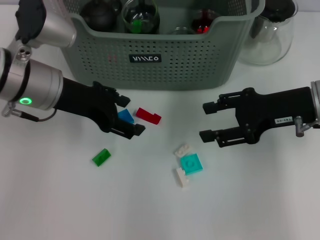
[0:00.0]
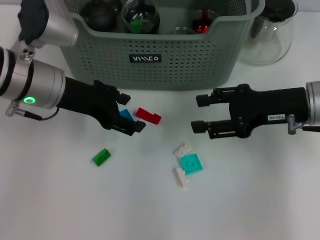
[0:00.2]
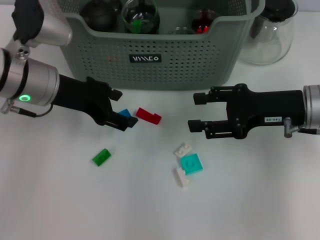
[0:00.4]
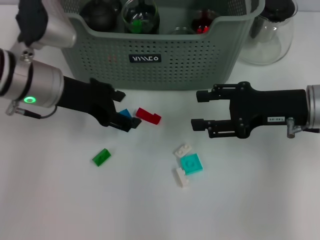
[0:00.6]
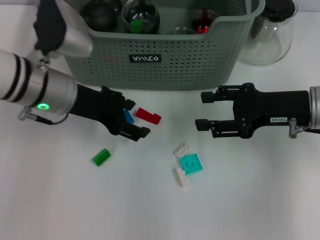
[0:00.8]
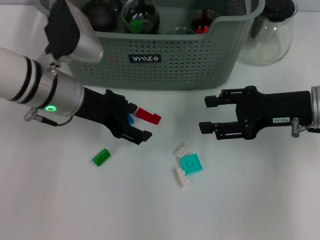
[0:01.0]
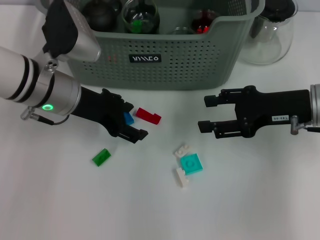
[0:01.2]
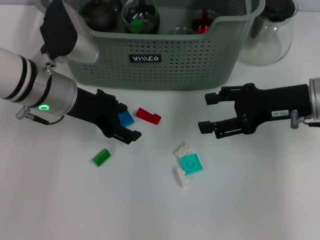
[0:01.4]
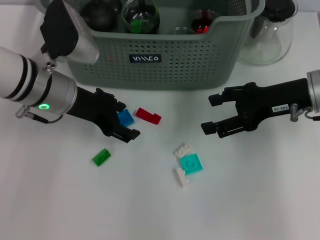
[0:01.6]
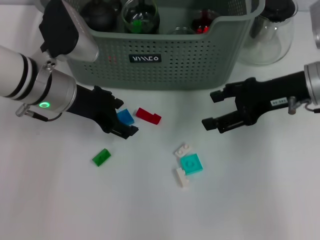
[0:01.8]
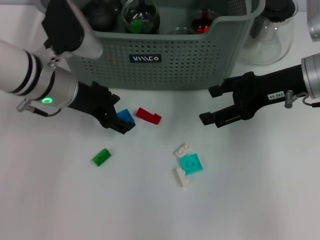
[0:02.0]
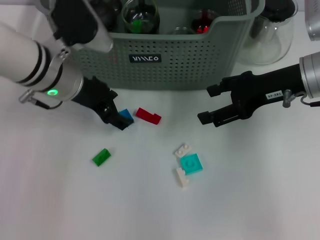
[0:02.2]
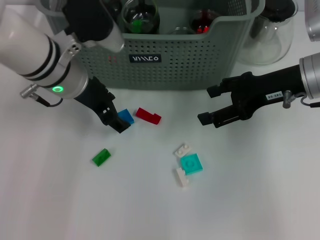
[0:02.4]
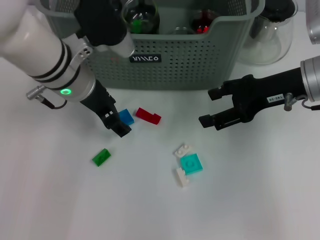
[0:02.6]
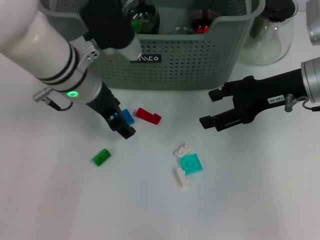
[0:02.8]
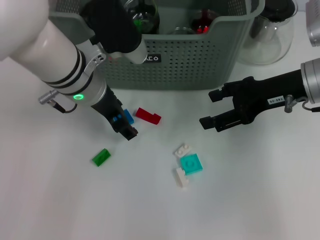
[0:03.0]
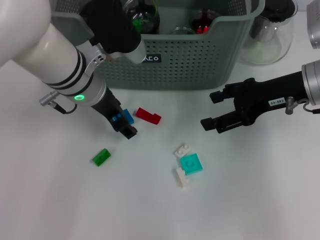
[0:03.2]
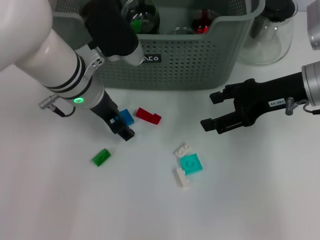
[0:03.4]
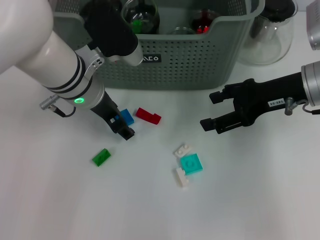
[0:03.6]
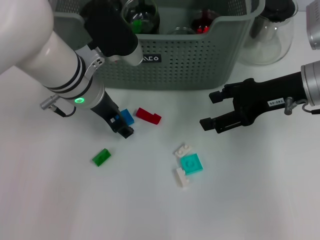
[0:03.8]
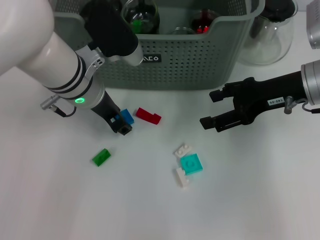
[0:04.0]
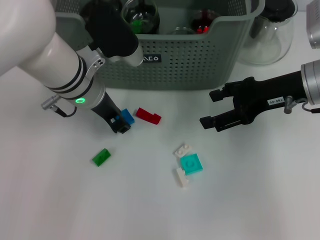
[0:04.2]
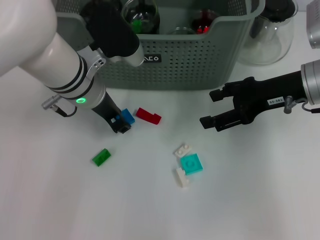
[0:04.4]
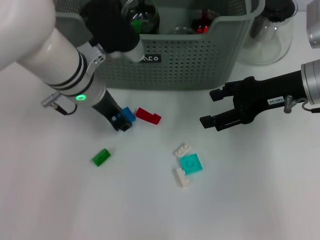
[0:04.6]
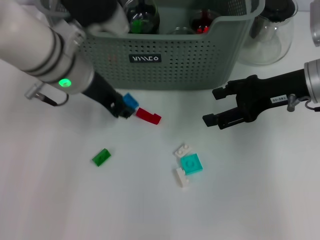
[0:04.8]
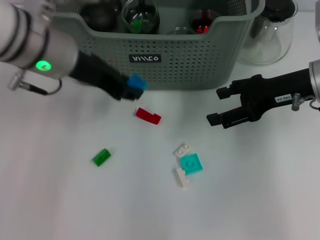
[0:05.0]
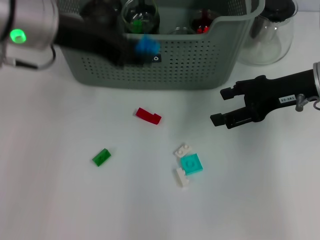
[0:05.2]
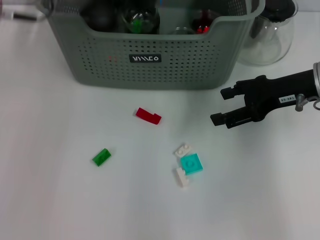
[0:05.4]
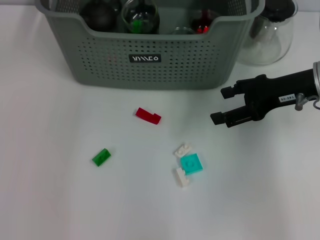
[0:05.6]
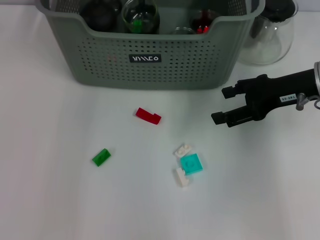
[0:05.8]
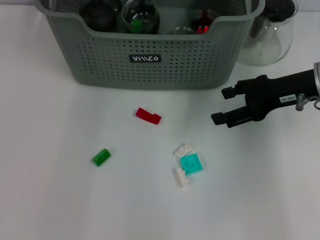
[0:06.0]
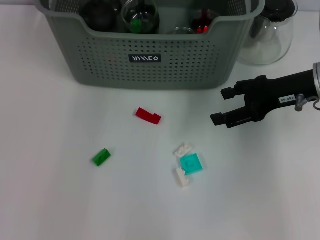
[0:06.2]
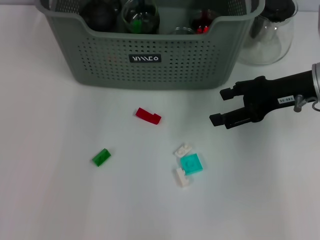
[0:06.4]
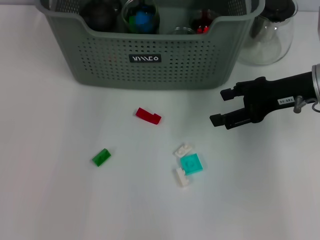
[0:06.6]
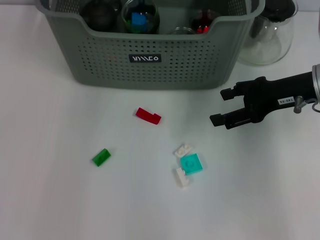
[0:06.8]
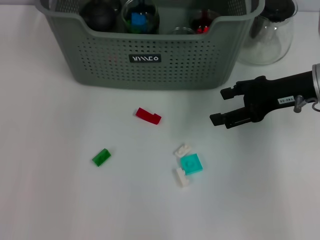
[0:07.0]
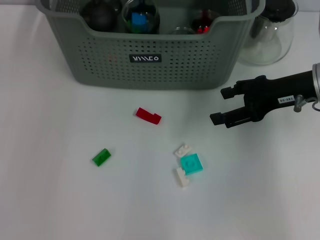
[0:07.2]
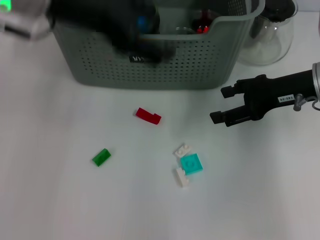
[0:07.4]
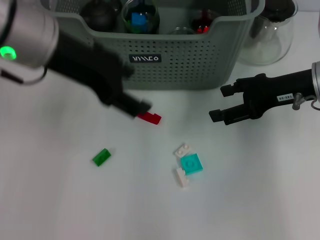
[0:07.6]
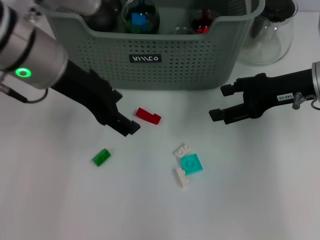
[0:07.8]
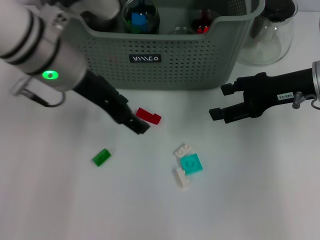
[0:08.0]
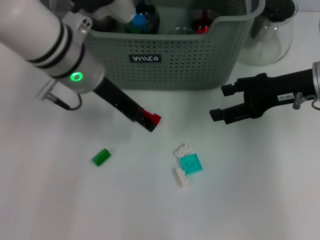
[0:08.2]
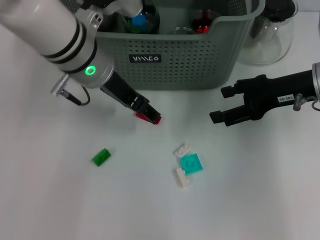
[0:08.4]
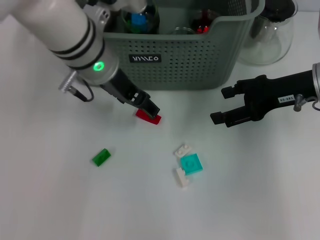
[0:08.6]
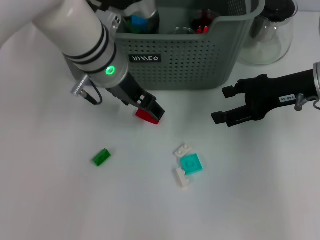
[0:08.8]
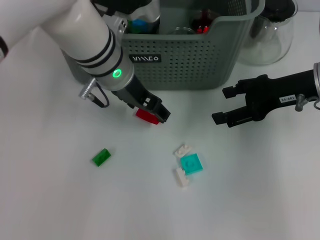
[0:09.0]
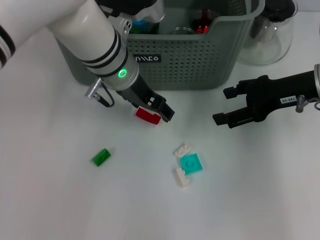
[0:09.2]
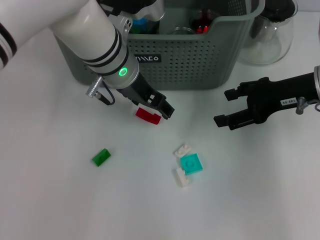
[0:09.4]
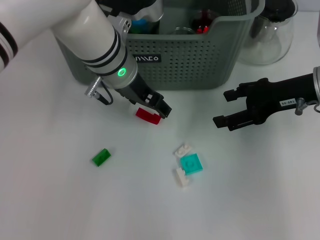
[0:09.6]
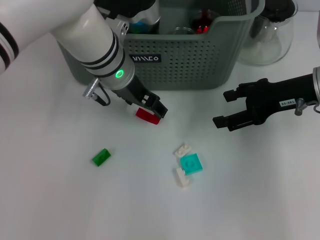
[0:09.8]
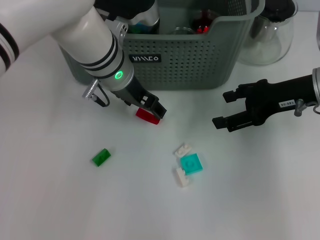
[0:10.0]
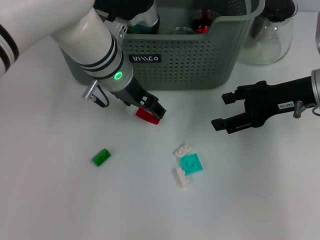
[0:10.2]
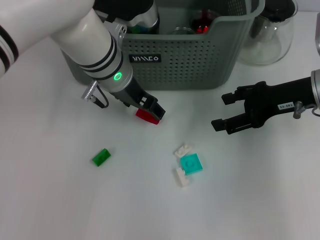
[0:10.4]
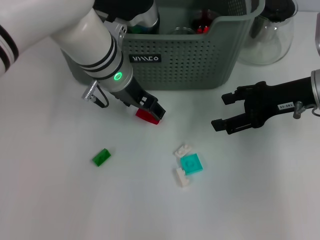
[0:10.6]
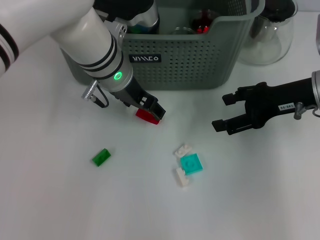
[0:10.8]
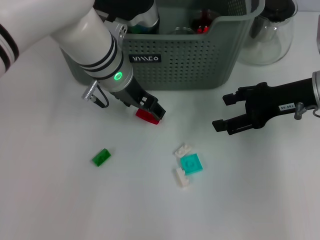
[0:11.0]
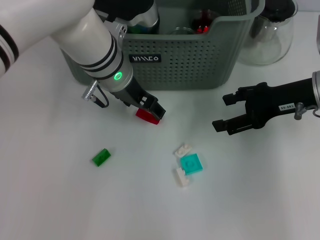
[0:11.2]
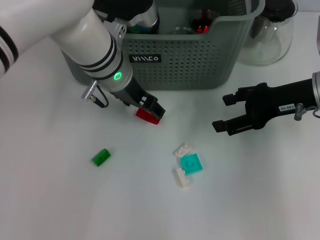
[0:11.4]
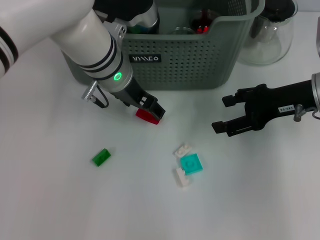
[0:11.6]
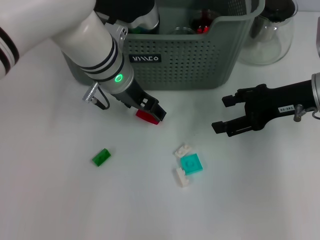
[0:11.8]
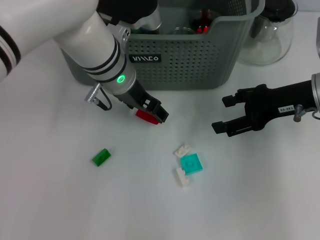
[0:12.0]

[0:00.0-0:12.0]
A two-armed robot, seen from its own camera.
Task of the whole recording: pick up the teacup on the table and place it into the storage bin, pick up the block on the table and place it into the storage bin.
Step, 0.0 to 4.2 s: Grasp the dark blue block with left gripper.
Step, 4.6 to 6.6 s: Place the dark blue block in the storage box with left gripper.
0.0 to 1.6 s: The grippers move only a little.
1.6 to 3.0 s: The left gripper moves to the right, roughly 5 cm.
3.0 to 4.4 s: The left gripper closes its fingers.
4.4 to 6.0 s: The left gripper is displaced upward and forward by about 15 cm.
6.0 to 7.6 s: The left gripper travels backward by some 15 cm, and opens up.
7.6 to 9.0 s: The left gripper heads downward, to the right and forward, covering some 15 cm.
9.0 to 10.4 s: The grippers move only a little.
10.4 to 12.0 s: Neither gripper changes place.

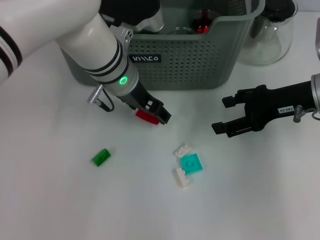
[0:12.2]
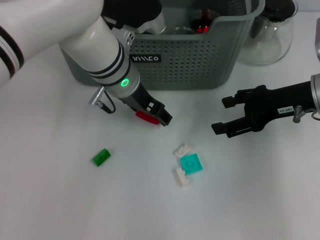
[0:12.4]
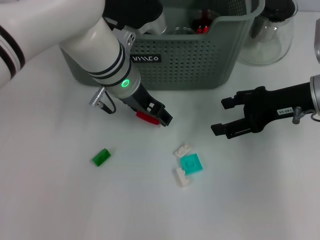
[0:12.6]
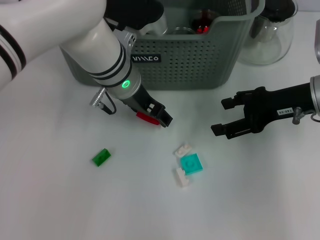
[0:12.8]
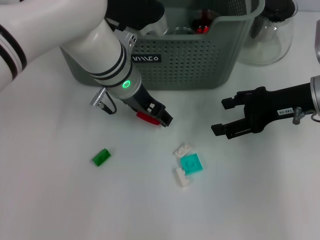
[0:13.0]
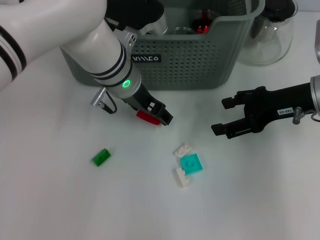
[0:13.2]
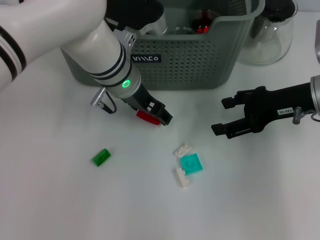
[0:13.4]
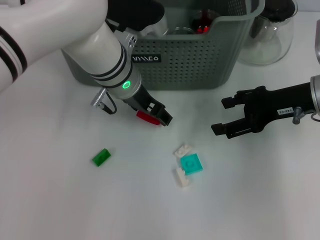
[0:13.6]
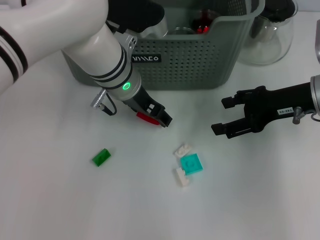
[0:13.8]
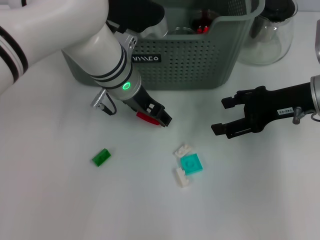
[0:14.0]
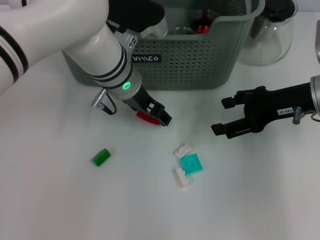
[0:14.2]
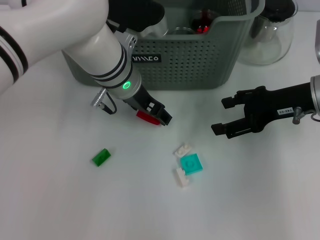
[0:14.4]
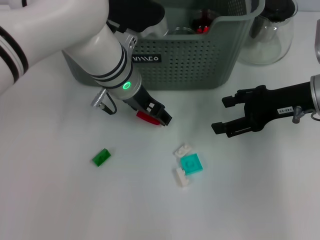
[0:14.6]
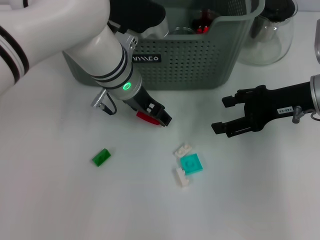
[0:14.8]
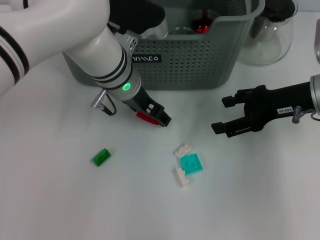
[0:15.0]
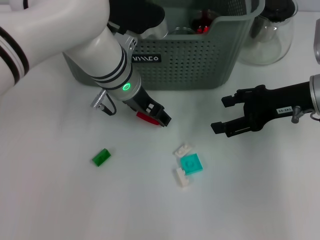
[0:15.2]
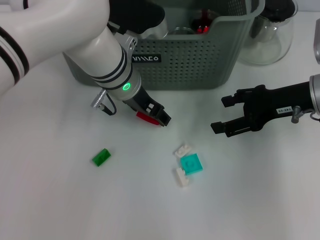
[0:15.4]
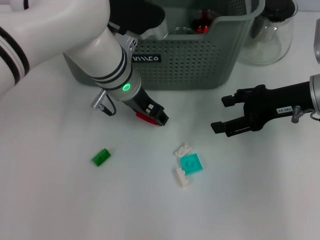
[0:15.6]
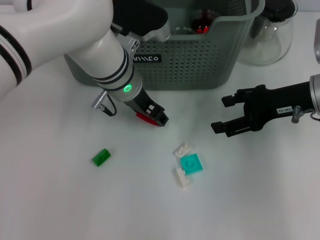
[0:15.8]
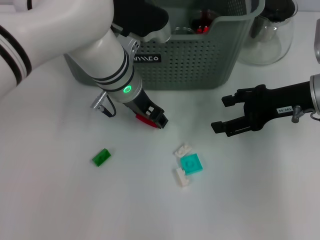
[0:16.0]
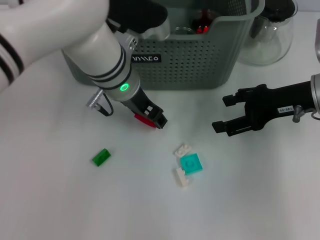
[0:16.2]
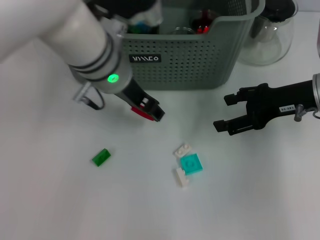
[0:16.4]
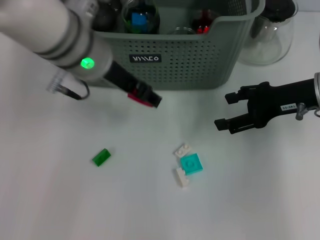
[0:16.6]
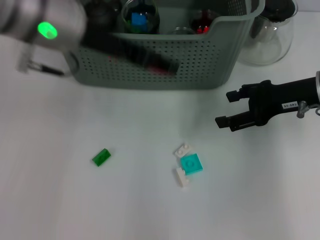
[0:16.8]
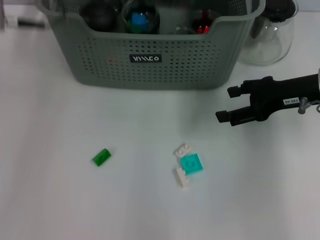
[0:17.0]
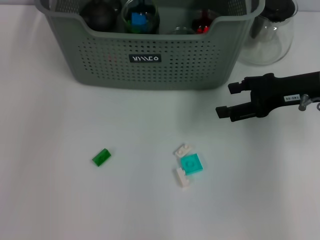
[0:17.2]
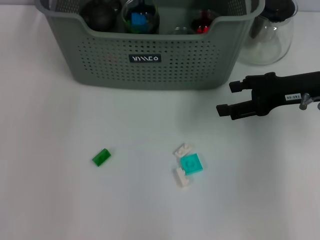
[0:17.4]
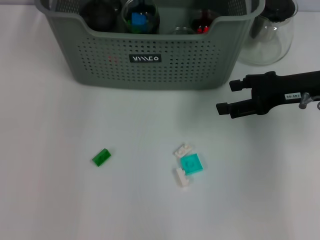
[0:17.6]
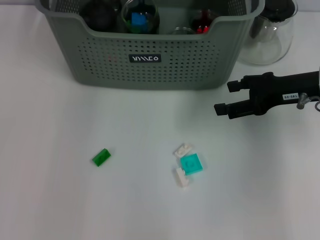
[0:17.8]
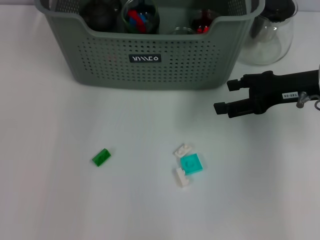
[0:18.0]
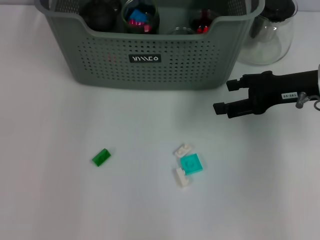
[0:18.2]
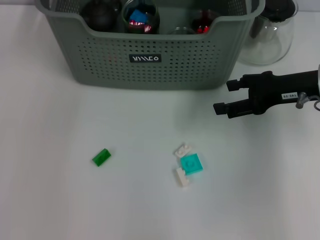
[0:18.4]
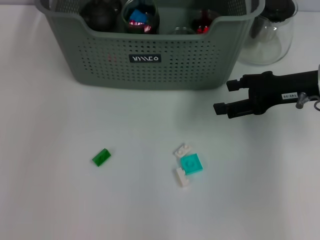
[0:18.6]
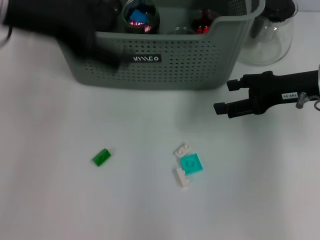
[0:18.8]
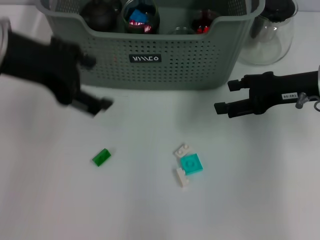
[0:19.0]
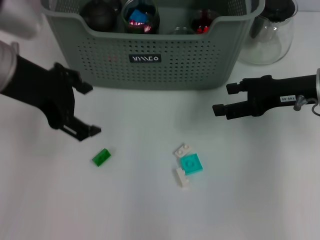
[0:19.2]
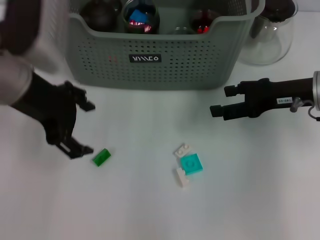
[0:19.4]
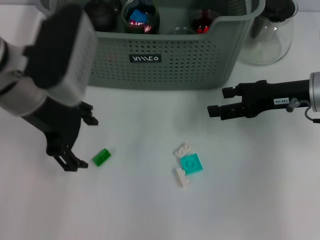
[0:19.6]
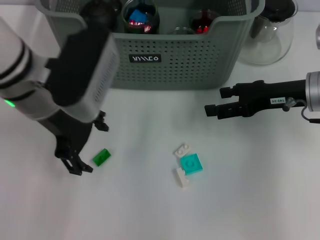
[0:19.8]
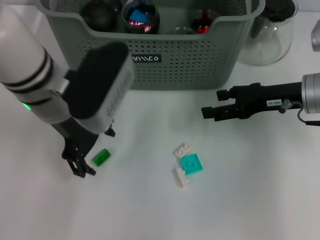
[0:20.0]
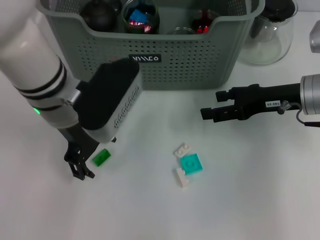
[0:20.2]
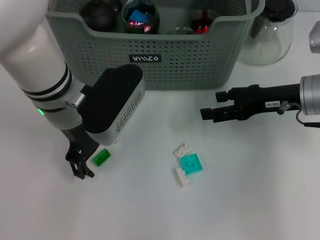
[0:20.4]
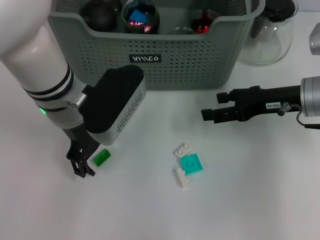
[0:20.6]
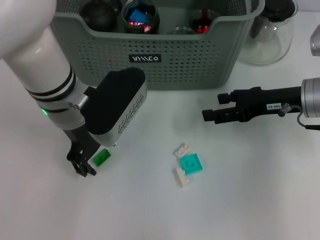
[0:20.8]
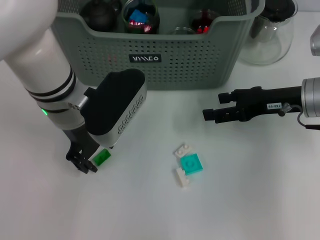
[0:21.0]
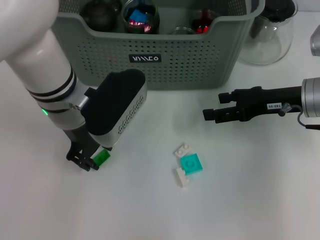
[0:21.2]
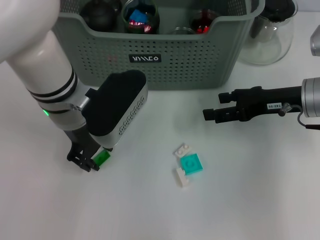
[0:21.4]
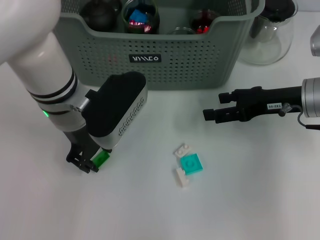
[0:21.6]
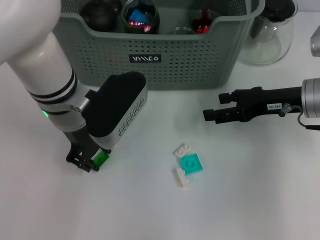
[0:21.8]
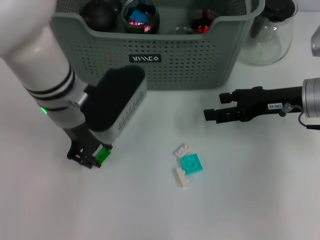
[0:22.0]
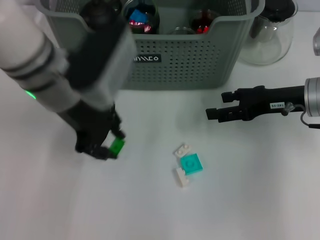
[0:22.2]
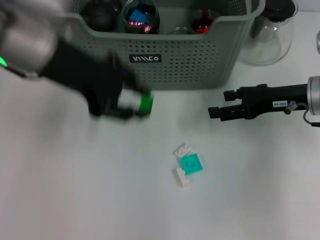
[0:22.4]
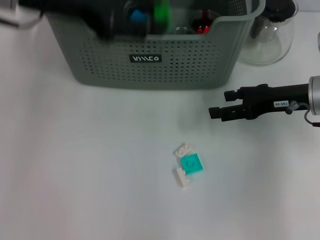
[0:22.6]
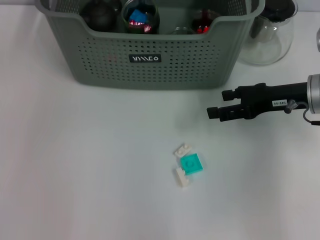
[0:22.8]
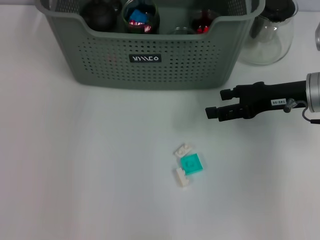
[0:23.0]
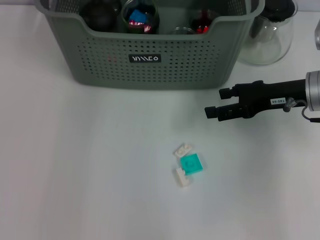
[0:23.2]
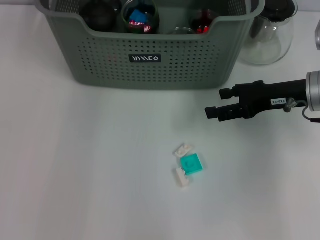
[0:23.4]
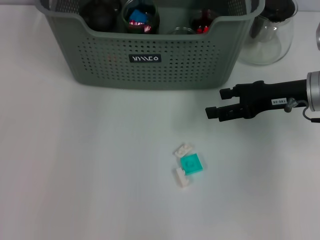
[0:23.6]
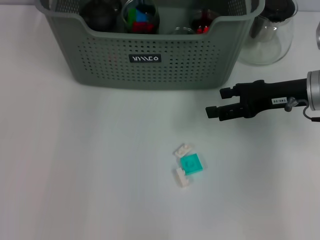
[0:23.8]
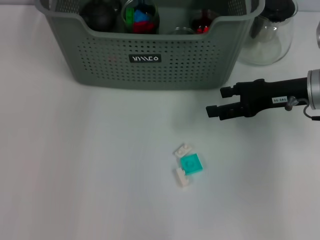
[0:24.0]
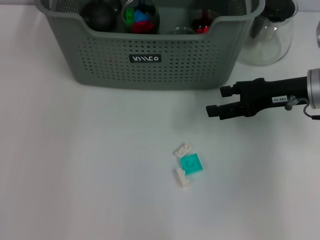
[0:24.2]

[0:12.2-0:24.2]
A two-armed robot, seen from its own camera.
Task of the whole recording: pick up the teacup on the table and place it into the storage bin, pick up the block on the table and place it into the storage bin.
Step, 12.2 to 15.6 s: Grasp the red block with left gripper.
Step, 15.8 to 18.0 s: Place the red block in the storage box with left gripper.
Step, 18.4 to 21.8 s: Grasp the green block with left gripper.
Step, 22.0 to 23.8 s: Place the green block in the storage box with left gripper.
12.2 to 15.2 s: Both grippers stay about where they are.
15.2 to 16.6 s: The left gripper moves upward, roughly 5 cm.
16.6 to 18.2 s: The left gripper heads forward and upward, covering roughly 15 cm.
18.2 to 19.8 s: The left gripper travels backward and downward by about 15 cm.
19.8 to 21.2 s: The left gripper is displaced downward by some 5 cm.
21.2 to 22.6 s: The left gripper travels upward and to the left by about 15 cm.
22.6 to 24.2 s: The left gripper goes forward and returns, roughly 15 cm each way, and opens.
